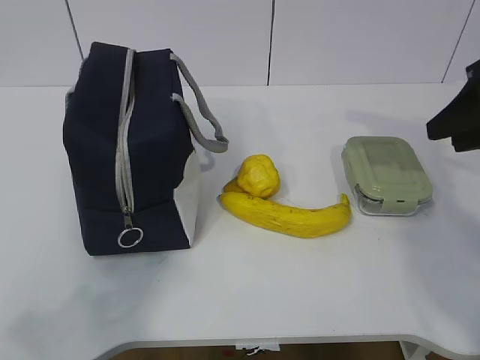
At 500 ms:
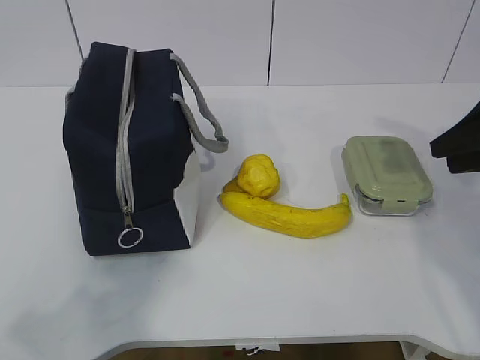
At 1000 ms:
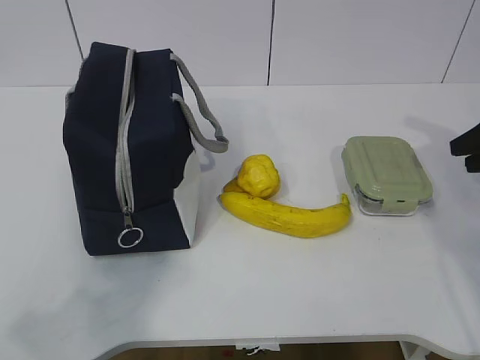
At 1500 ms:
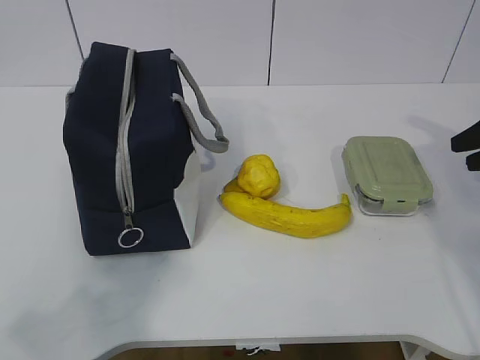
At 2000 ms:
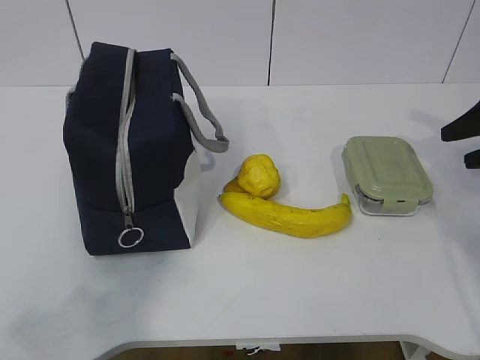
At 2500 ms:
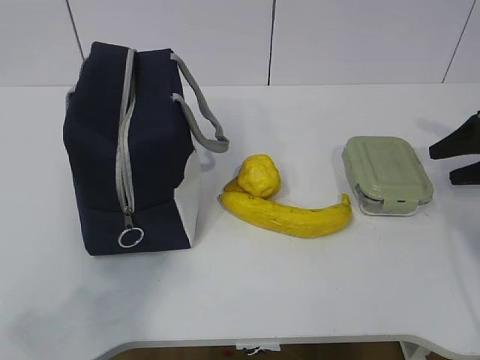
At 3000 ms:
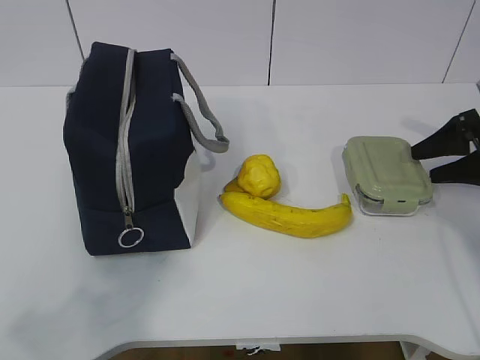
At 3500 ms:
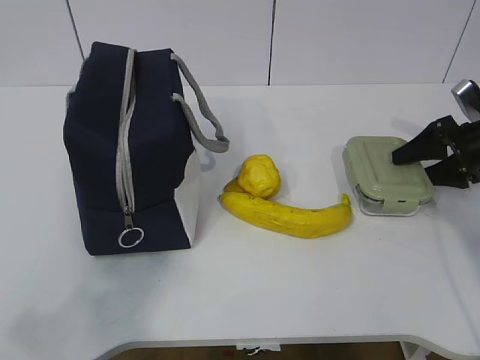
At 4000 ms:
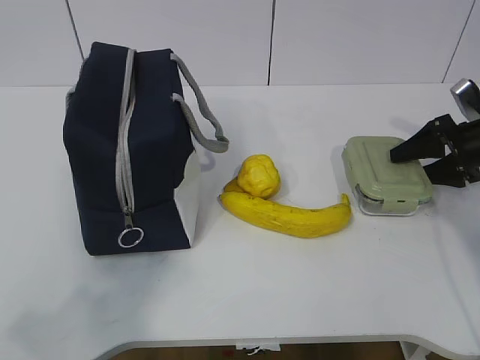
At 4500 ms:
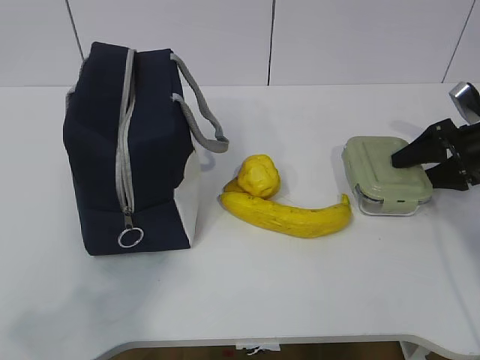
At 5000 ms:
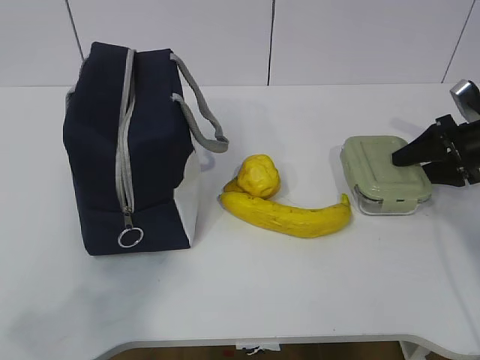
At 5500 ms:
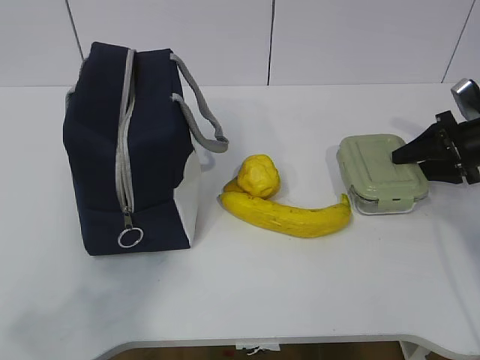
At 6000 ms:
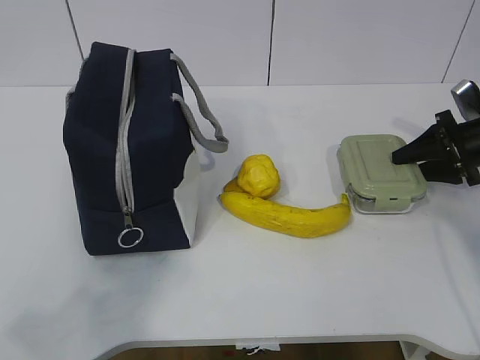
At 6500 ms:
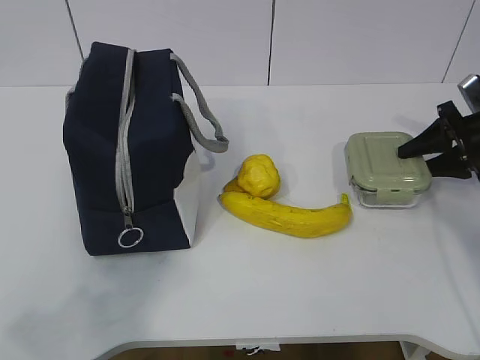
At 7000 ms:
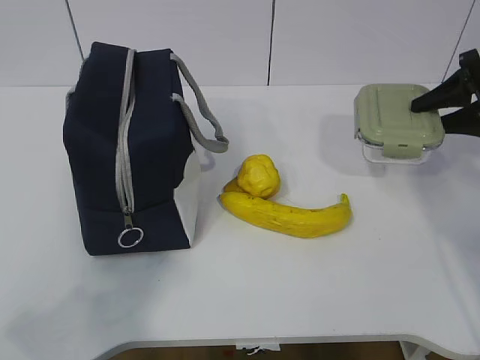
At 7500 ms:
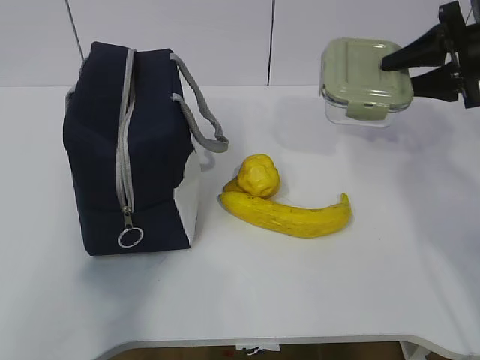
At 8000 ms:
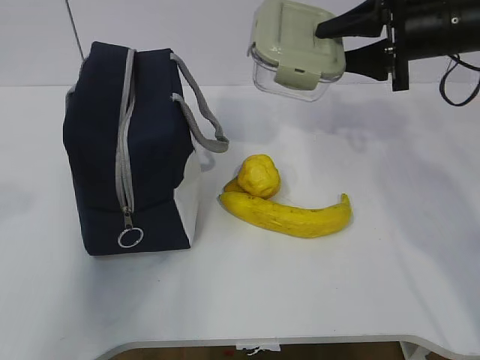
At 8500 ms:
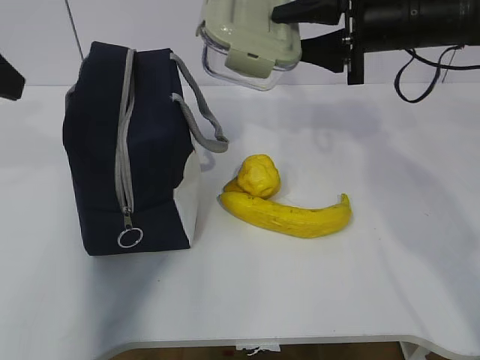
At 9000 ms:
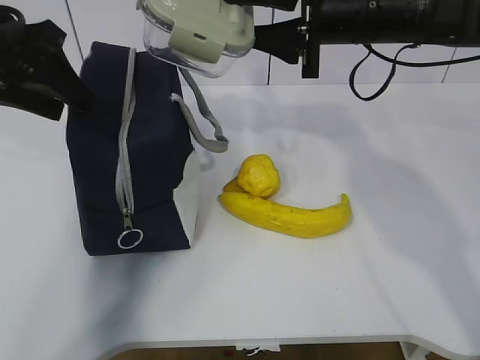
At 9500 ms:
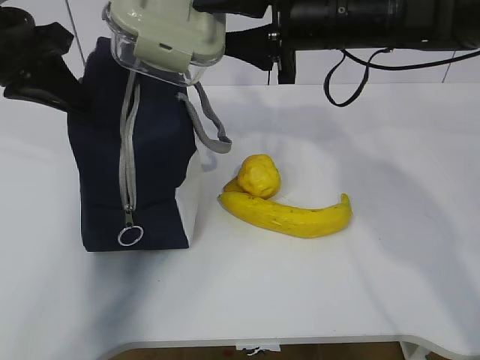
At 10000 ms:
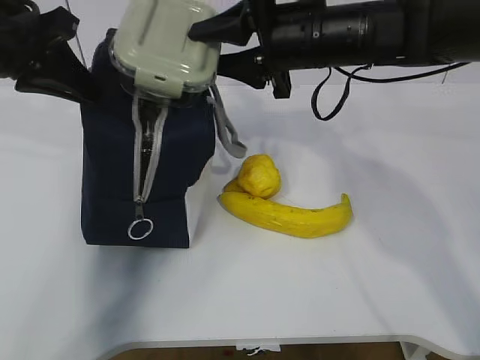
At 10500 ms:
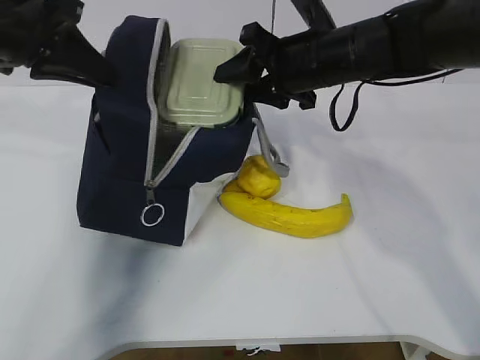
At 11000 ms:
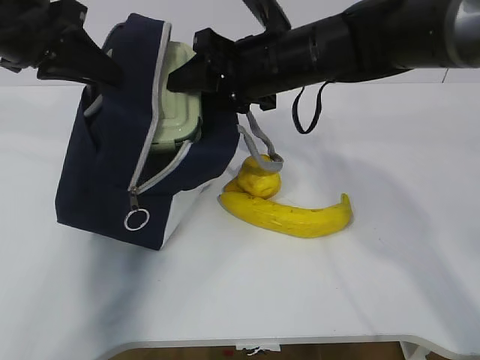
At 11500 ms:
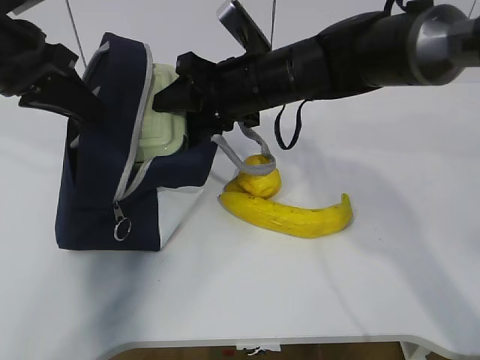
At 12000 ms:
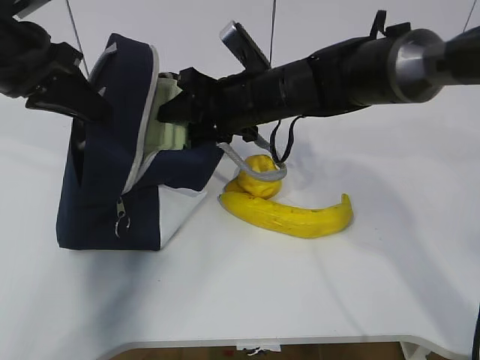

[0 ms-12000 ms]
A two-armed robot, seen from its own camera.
Step, 0 ms to 5000 ms: Grasp the box with the right gripper.
0 ms to 2000 ms: The right gripper goes approximately 15 cm to the right, downward and forward, and opens its fingers.
2000 ms to 4000 ms: The right gripper moves downward, some 5 cm.
4000 ms to 6000 ms: The right gripper closes its fingers.
6000 ms to 8000 ms: The right gripper travels upward and to the left by roughly 20 cm. Meanwhile the left gripper moves forward and upward, some 15 cm.
8000 ms to 10000 ms: The right gripper moves to the left, roughly 15 cm, while the left gripper travels forward by roughly 20 cm, and closes its fingers.
10000 ms to 12000 ms: The right gripper goes about 10 cm downward and to the left.

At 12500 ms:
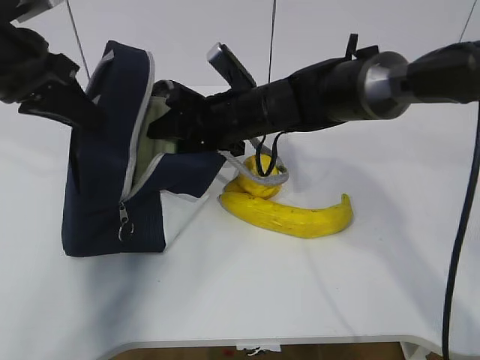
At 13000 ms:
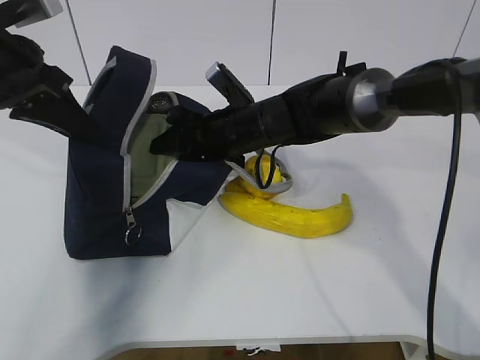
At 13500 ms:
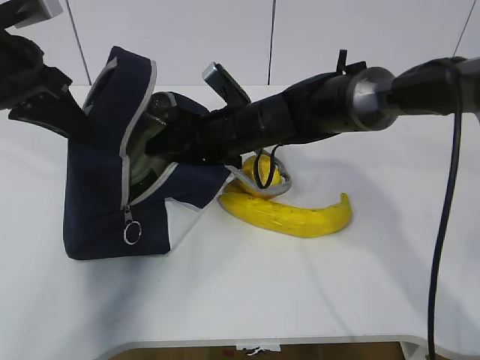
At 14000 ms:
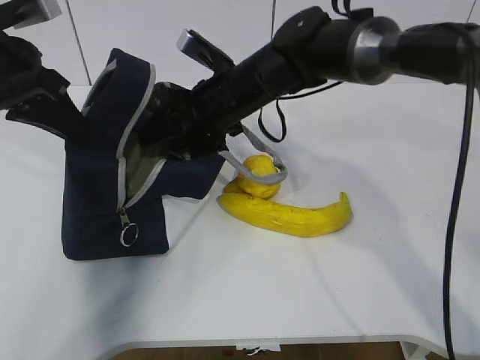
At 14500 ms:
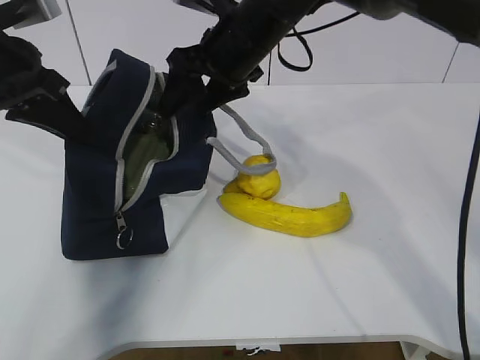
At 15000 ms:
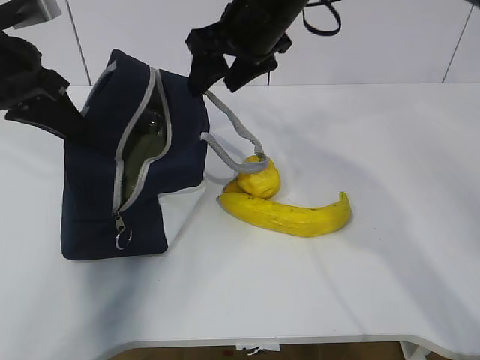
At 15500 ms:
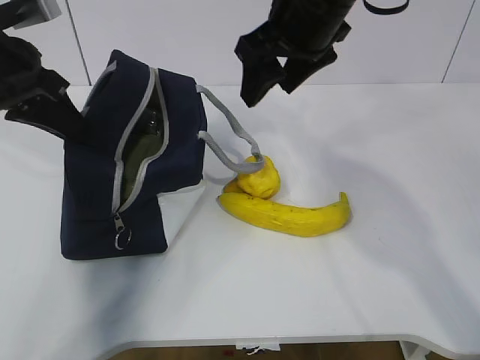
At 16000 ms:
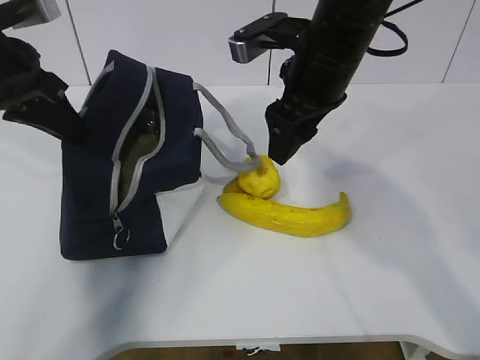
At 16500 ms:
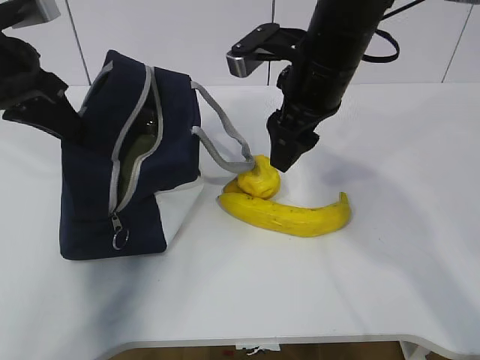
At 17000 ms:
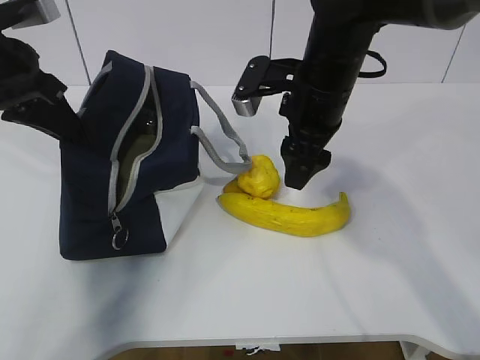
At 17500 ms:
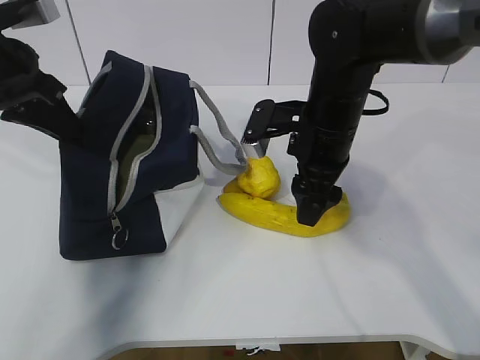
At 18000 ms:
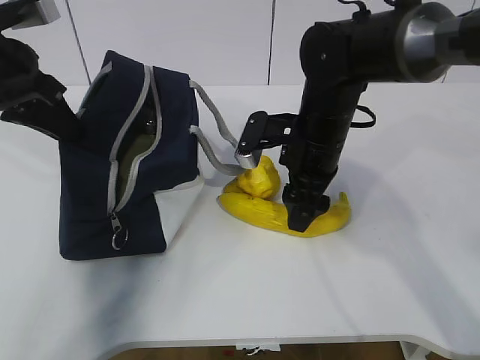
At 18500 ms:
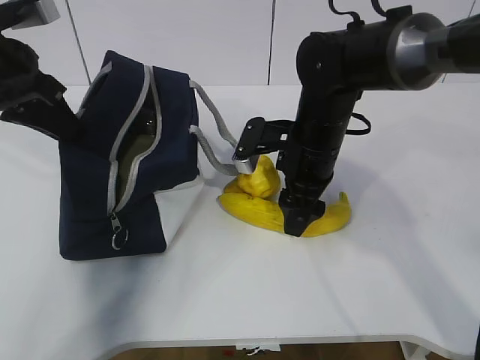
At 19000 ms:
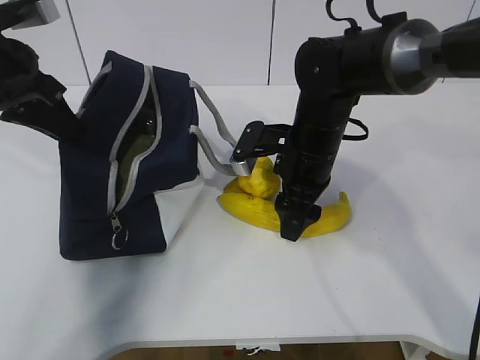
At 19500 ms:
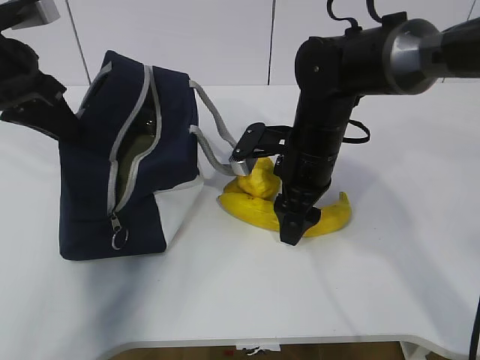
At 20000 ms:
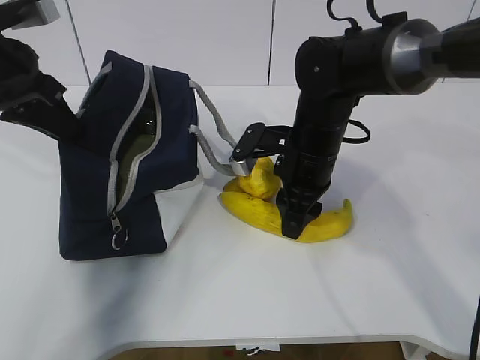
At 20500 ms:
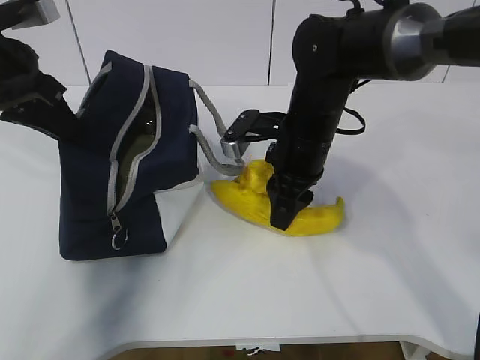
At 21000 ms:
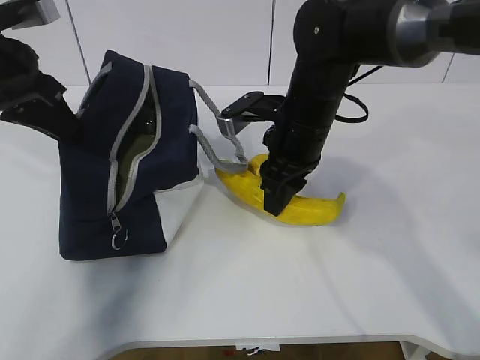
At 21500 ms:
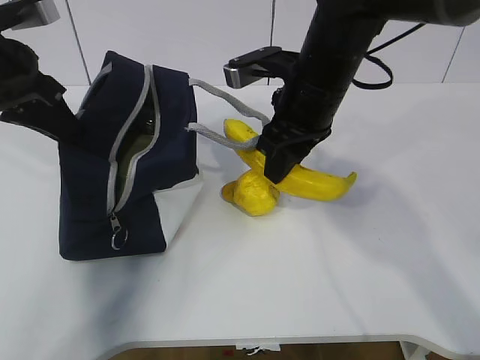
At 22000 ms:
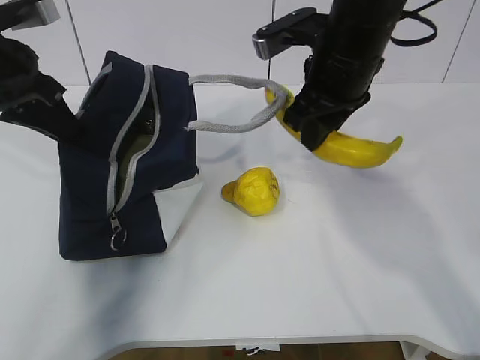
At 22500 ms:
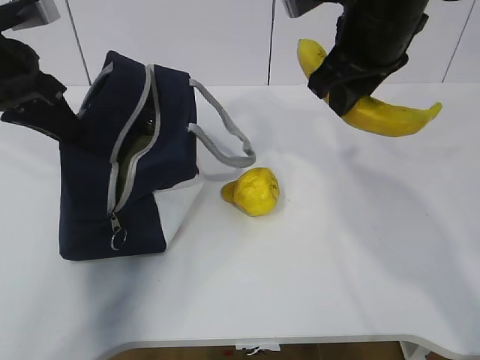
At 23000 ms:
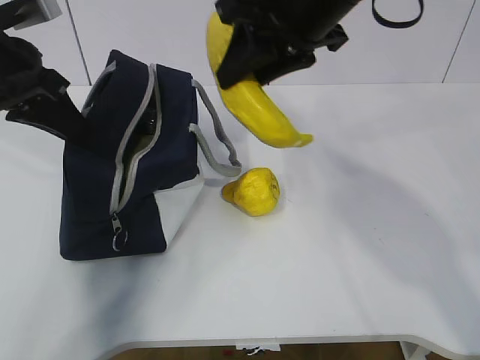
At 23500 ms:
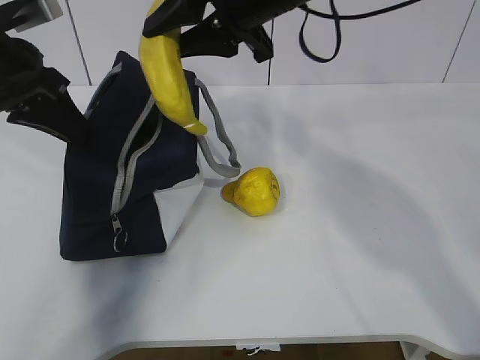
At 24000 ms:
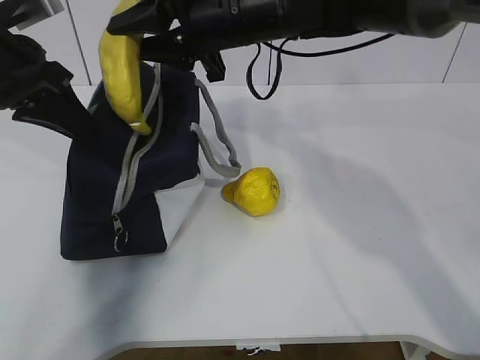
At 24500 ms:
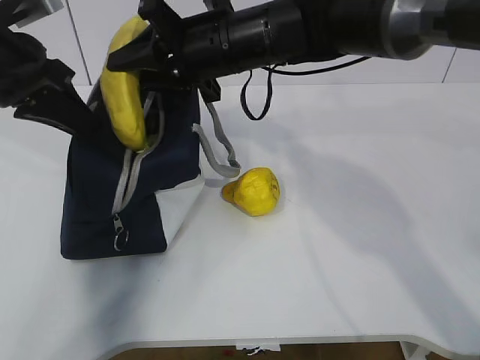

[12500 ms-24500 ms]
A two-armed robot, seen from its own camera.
Step, 12500 ms to 14500 ms: Place the box into the package with the right gripper.
Step, 15000 ms to 20000 ms: Grasp the banana with the right gripper.
12500 ms to 14500 ms: The right gripper travels upward by some 10 cm.
14500 ms to 16500 ms: The right gripper goes roughly 10 cm to the right and backward.
16500 ms to 18500 ms: The right gripper heads downward, covering roughly 10 cm.
18500 ms to 20500 ms: The right gripper closes its fingers.
20500 ms to 22500 ms: The right gripper shifts approximately 15 cm upward.
22500 ms to 24500 ms: The right gripper travels to the left by approximately 10 cm.

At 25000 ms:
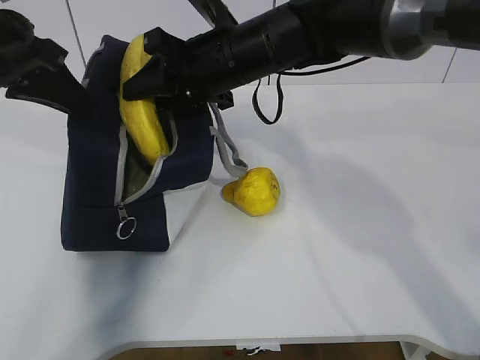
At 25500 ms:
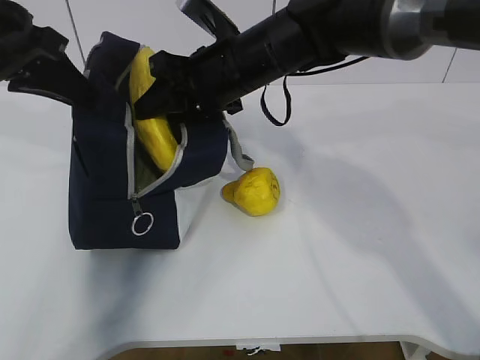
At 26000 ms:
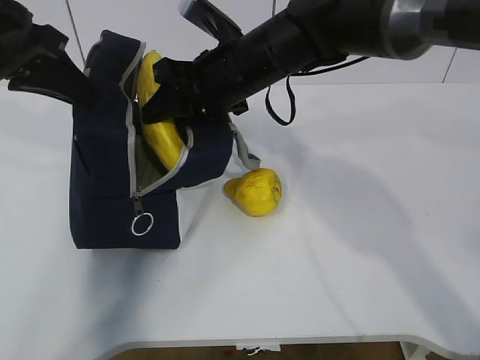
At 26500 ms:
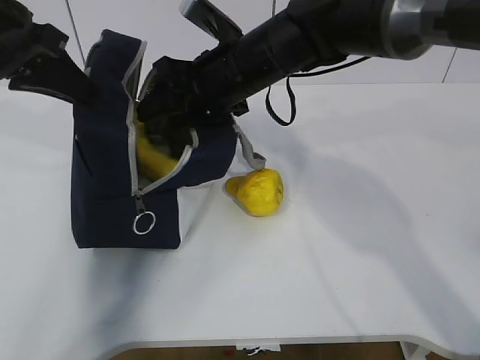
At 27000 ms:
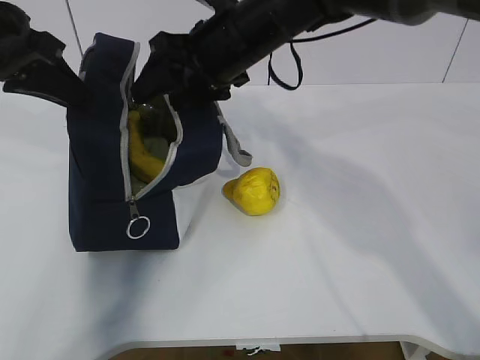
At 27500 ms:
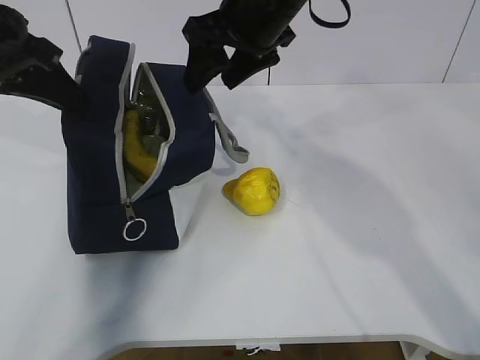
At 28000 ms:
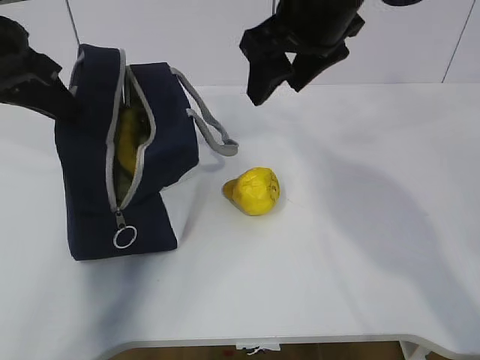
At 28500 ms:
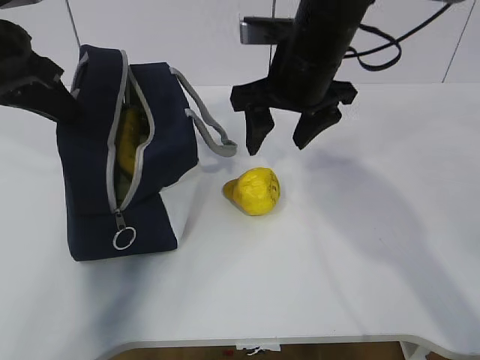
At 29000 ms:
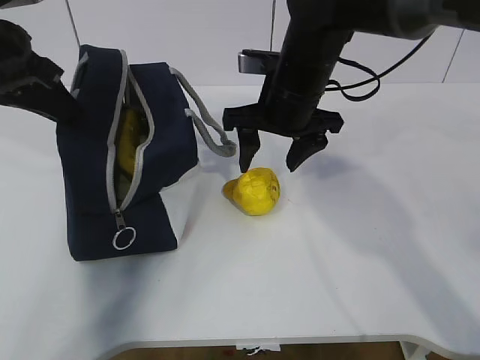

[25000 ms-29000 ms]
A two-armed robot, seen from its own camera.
Step, 25000 ms to 27500 ms: Place the banana into the package with the right gripper.
25000 ms to 27000 ms: The right gripper opens.
27000 ms to 29000 ms: The right gripper travels to the right by about 5 cm.
